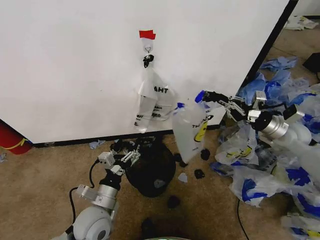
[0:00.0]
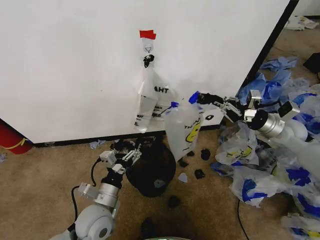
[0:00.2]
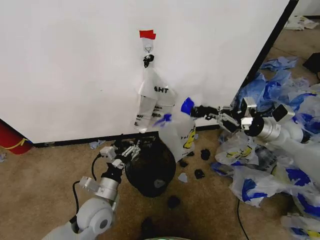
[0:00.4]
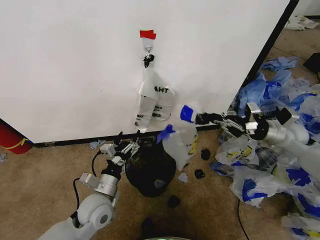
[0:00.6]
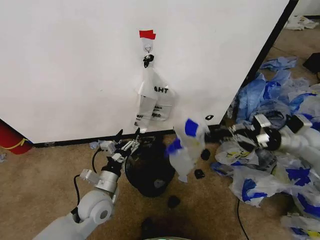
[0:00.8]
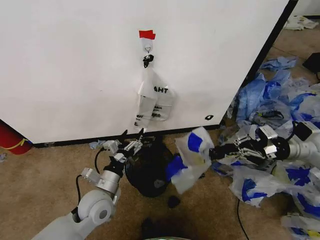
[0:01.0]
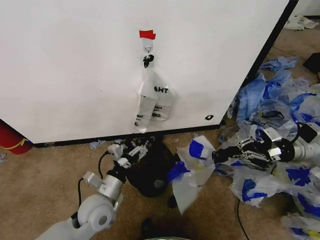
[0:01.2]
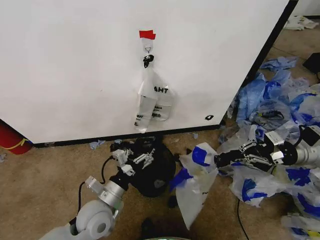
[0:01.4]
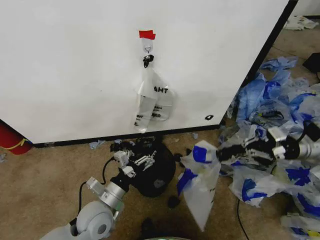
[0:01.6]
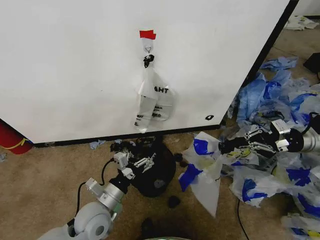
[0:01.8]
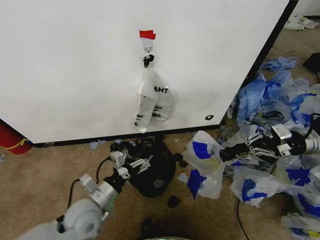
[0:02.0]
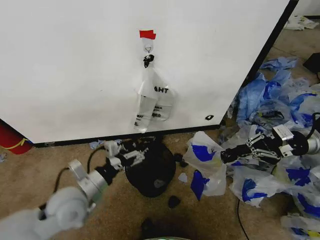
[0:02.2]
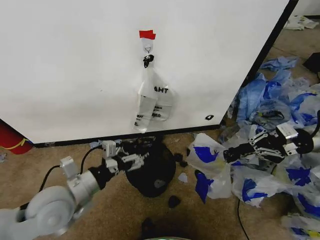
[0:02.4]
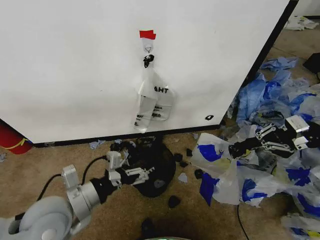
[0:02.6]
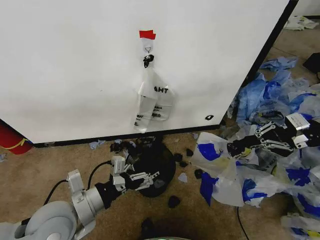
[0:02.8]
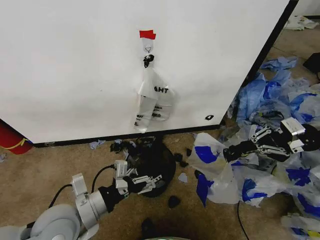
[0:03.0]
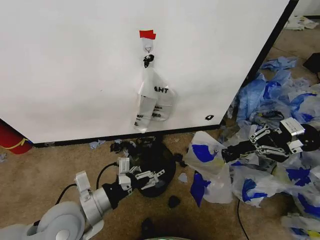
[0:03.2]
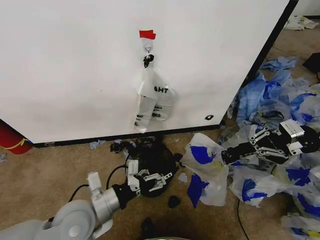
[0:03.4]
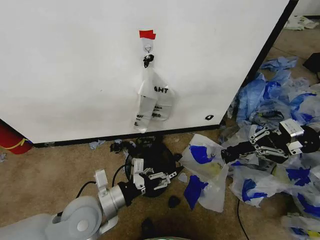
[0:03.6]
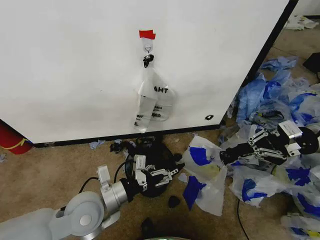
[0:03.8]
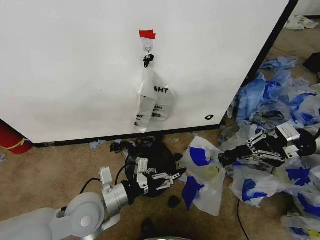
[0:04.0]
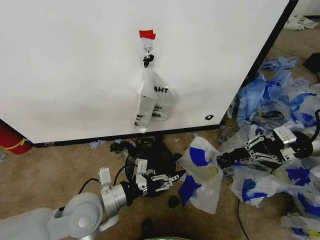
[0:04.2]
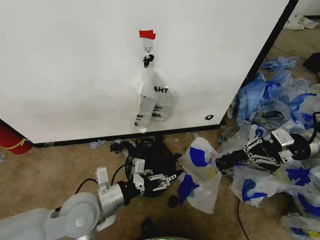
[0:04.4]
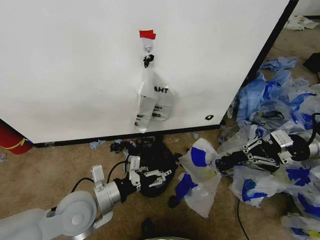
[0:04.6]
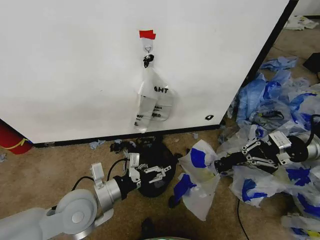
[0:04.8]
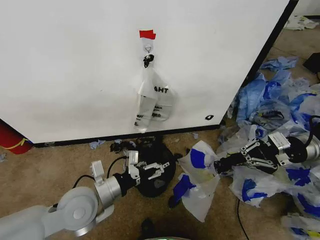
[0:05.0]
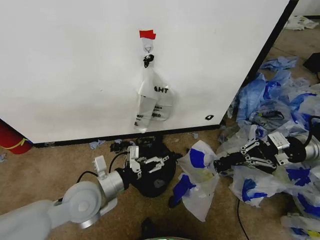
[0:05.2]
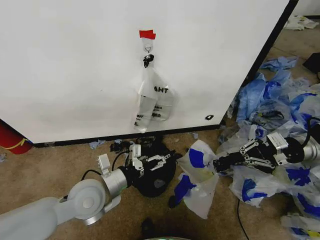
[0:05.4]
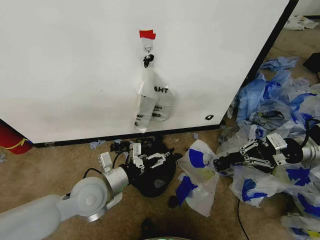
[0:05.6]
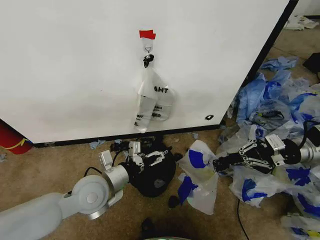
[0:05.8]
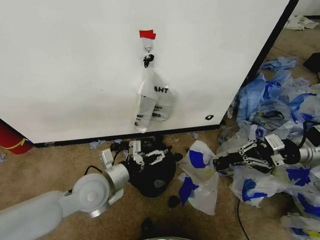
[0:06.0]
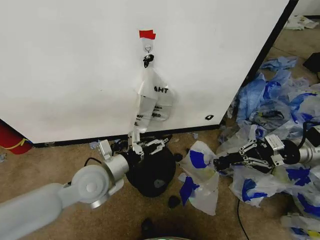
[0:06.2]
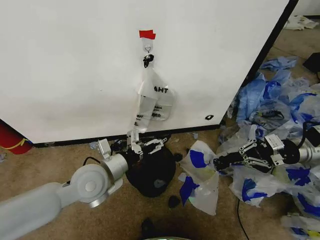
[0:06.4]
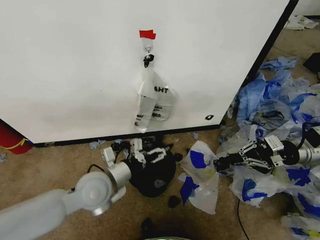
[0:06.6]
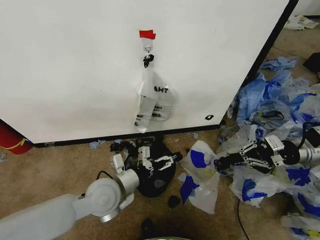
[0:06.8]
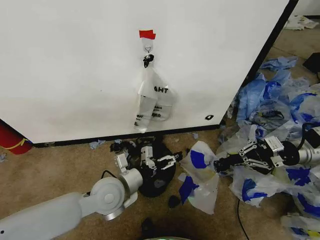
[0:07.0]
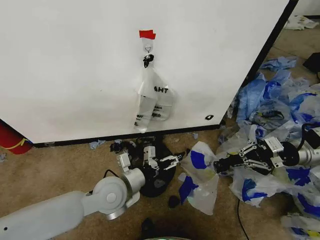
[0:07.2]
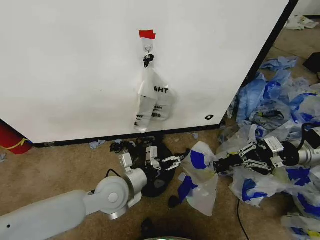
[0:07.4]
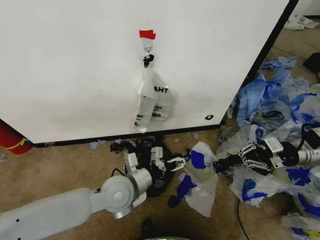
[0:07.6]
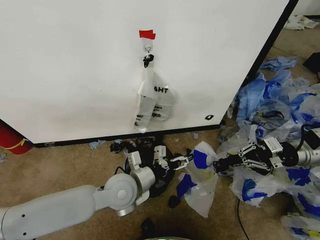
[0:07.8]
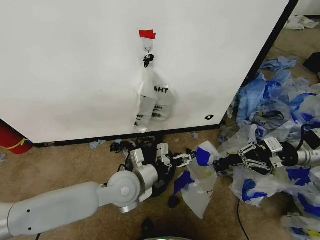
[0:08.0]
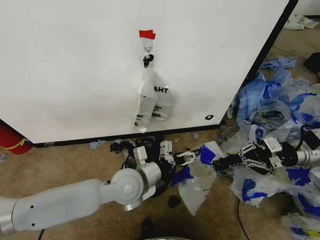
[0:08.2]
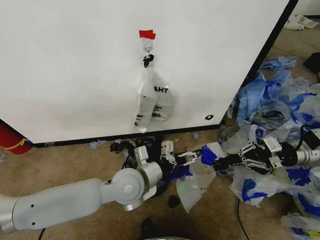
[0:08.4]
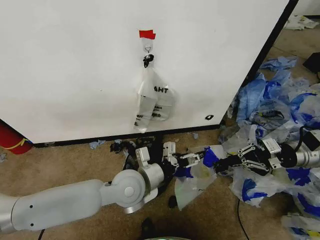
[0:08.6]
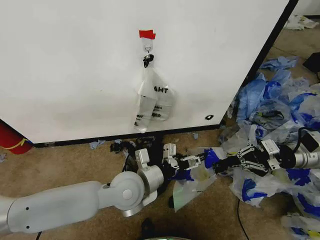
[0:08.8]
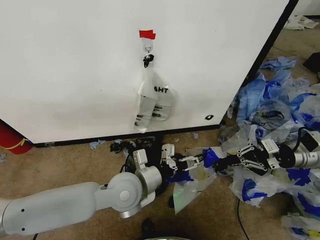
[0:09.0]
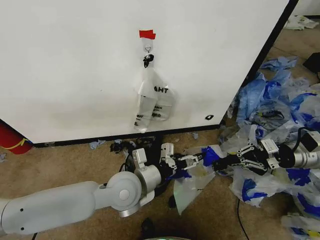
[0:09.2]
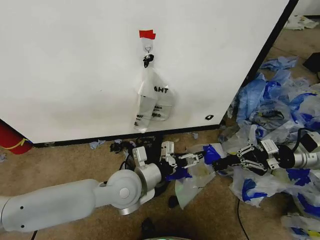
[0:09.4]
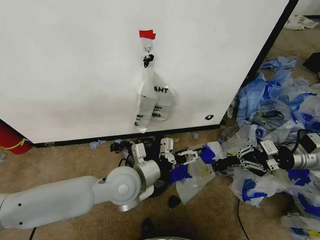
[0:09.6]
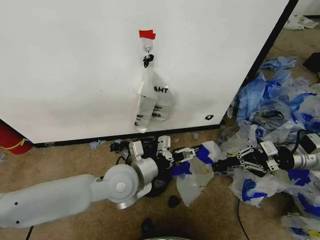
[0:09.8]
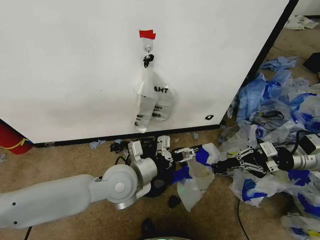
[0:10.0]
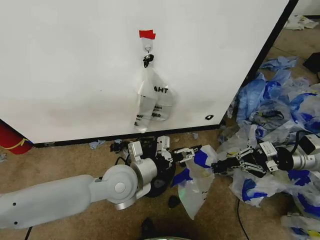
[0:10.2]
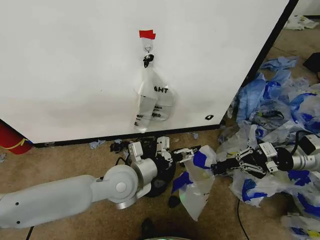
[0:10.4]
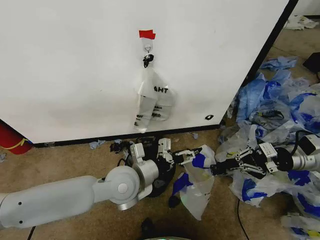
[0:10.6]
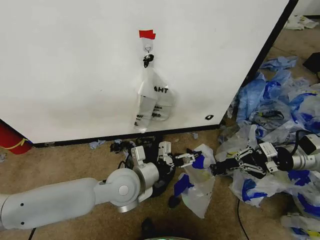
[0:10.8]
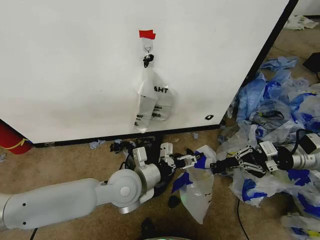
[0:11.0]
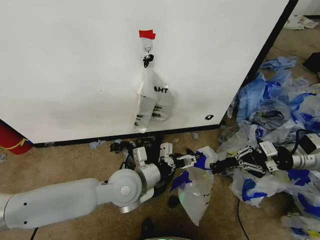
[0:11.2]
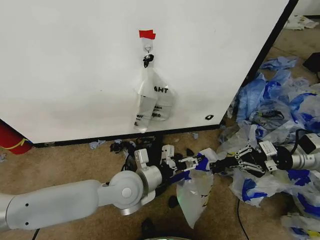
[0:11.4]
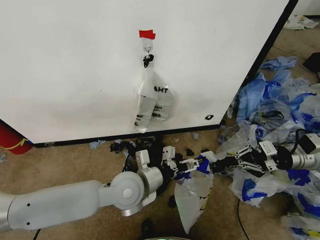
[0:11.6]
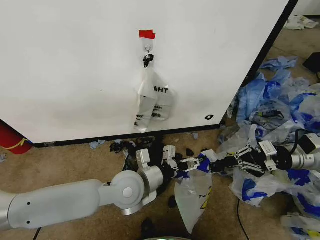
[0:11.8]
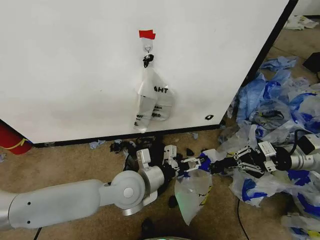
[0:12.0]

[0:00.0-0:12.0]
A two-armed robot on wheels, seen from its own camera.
Task of the whole recording: Pick up the garbage bag from the wall and place it over the trash bin.
0:00.0 to 0:01.6: The right gripper is displaced to the right and backward by about 5 cm.
0:01.6 to 0:03.0: The grippers both shift upward by roughly 10 cm.
0:03.0 to 0:04.4: The left gripper shifts by some 5 cm.
0:04.4 to 0:06.0: The left gripper shifts by about 5 cm.
0:06.0 to 0:07.6: The left gripper moves to the right, about 5 cm.
0:07.6 to 0:12.0: There are only small adjustments of the grippers.

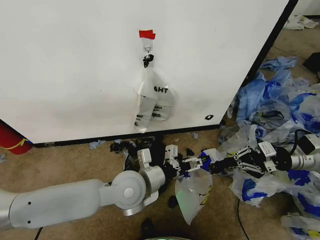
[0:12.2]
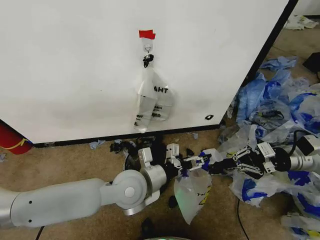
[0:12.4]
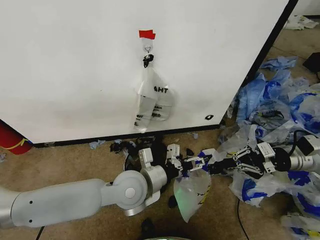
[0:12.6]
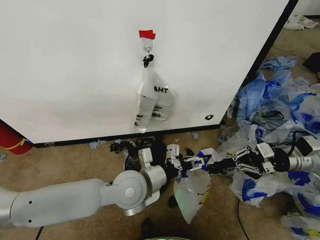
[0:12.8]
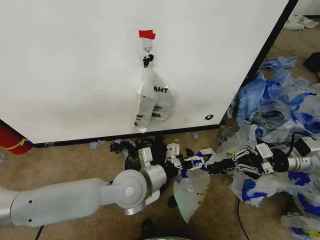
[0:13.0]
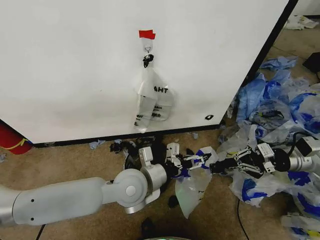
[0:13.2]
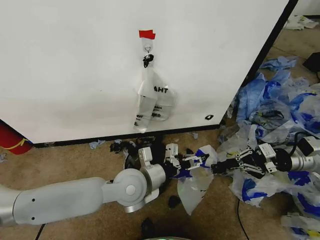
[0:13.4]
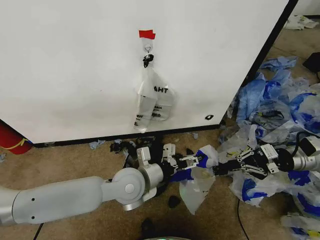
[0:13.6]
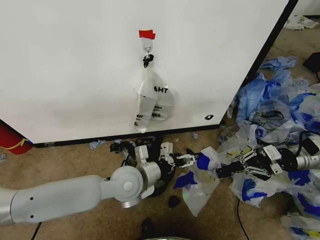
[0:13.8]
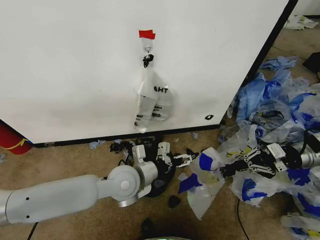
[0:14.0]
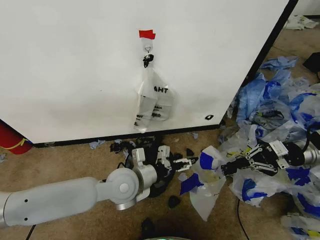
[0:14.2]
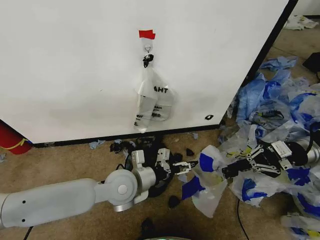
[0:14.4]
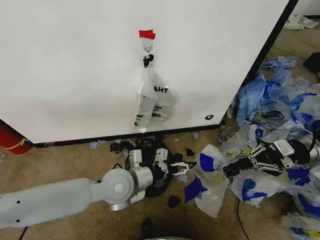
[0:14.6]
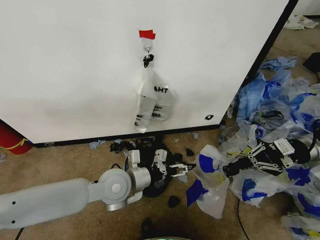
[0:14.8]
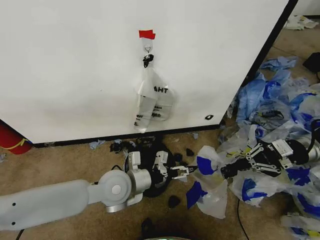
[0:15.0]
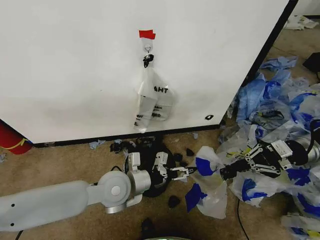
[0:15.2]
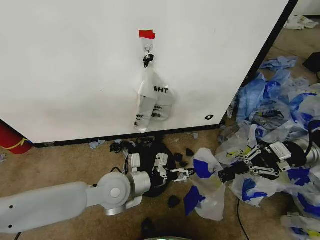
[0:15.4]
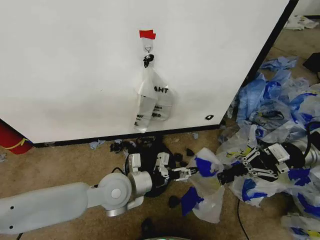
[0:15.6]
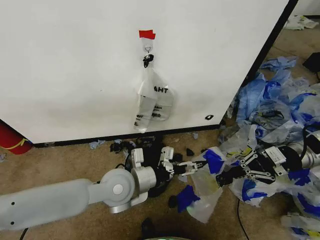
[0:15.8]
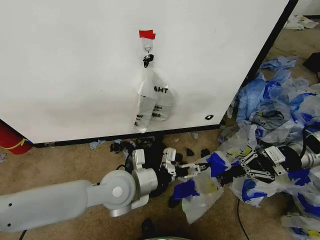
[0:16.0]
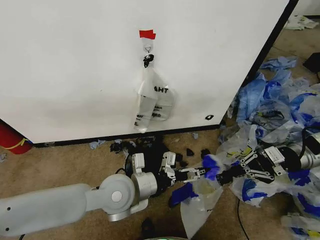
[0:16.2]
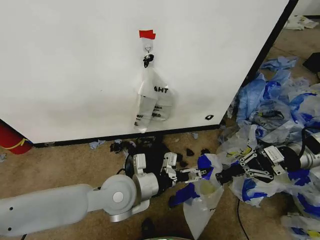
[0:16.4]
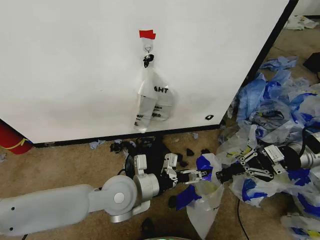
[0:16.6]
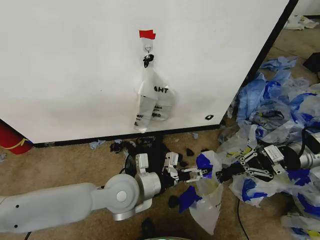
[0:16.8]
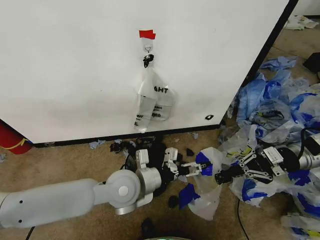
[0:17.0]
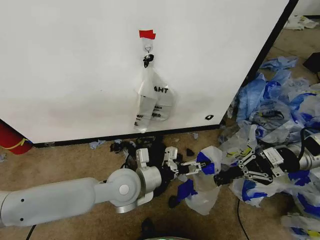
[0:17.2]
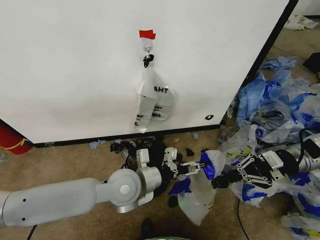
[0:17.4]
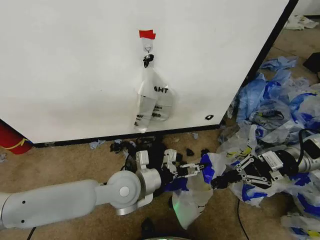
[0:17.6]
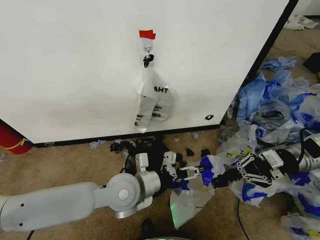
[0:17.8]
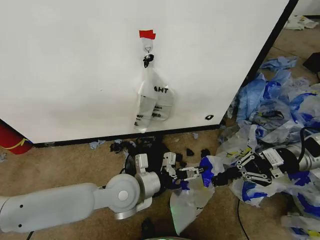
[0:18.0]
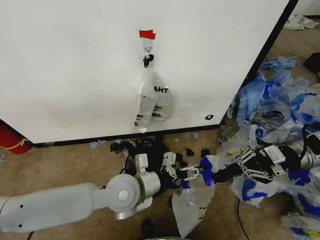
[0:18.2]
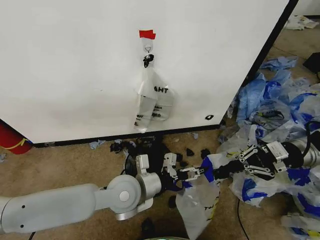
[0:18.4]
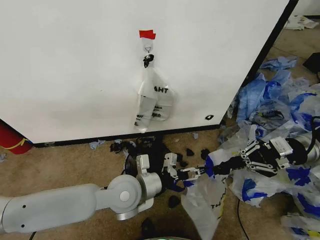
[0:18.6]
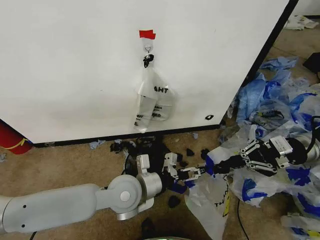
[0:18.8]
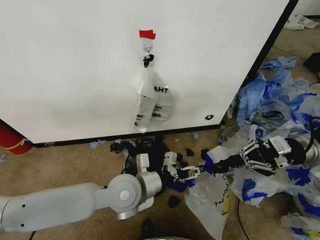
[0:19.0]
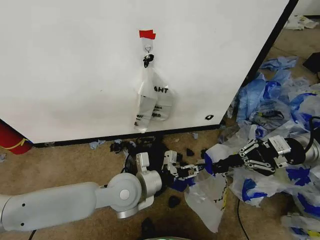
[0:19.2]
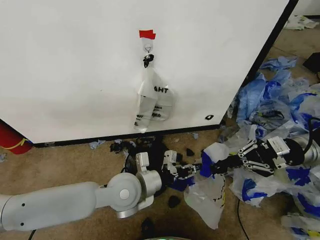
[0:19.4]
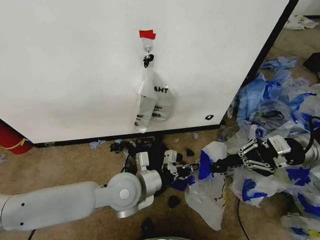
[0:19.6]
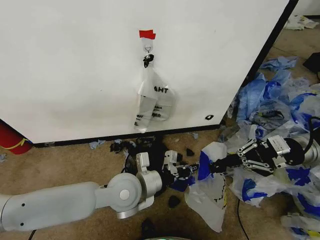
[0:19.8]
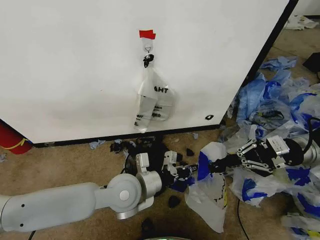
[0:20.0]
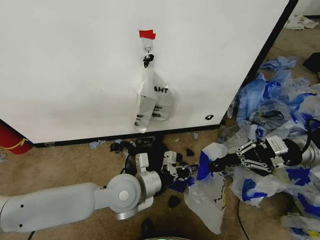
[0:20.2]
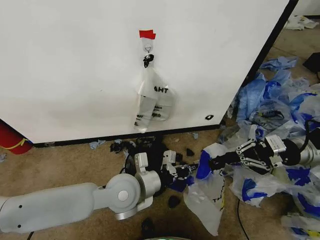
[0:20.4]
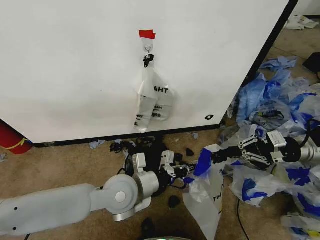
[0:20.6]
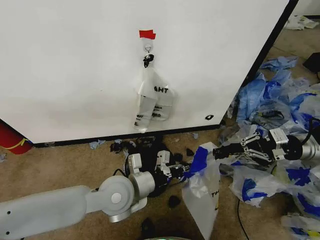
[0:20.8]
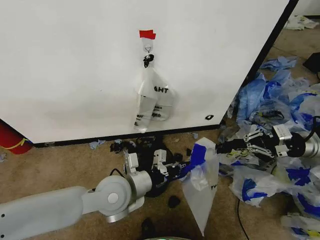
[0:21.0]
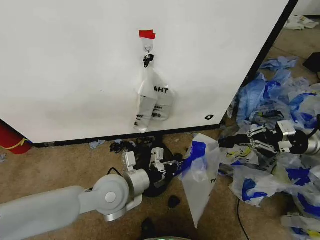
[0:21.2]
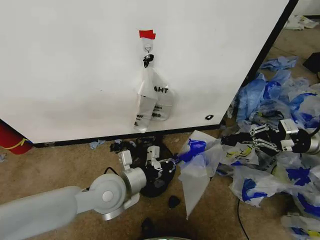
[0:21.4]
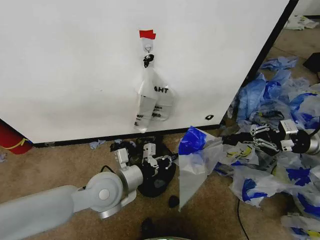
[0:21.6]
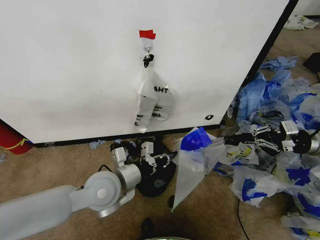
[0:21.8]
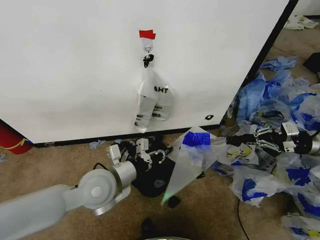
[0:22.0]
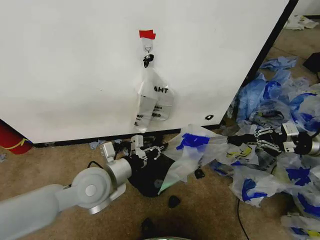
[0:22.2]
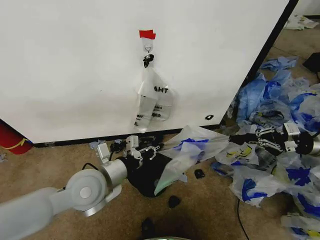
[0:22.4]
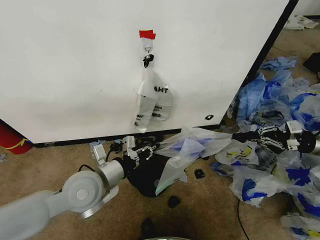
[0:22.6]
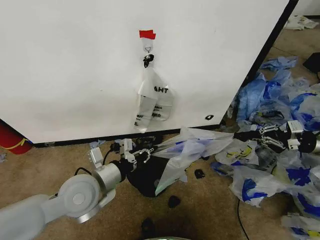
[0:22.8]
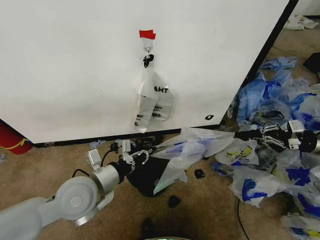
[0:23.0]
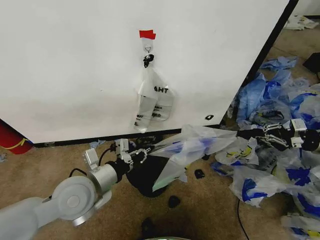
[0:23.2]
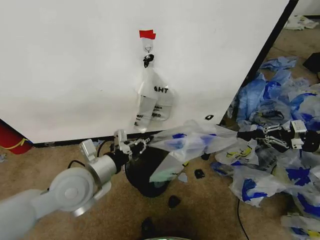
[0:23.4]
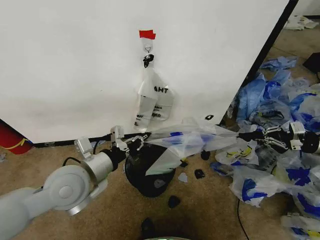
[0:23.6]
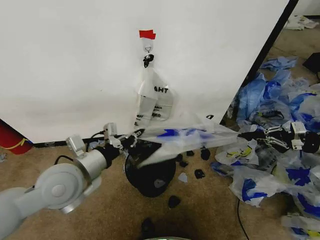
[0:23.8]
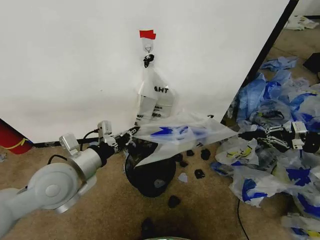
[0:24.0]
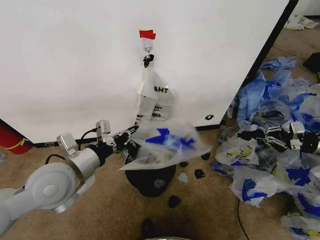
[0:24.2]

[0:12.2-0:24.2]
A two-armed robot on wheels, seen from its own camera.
Task of the whole recording: Pick up the garbage bag from the wall and place it over the trash bin.
0:12.2 to 0:13.8: There are only small adjustments of the grippers.
0:13.8 to 0:15.2: The right gripper changes place by approximately 5 cm.
0:15.2 to 0:18.2: The grippers make only small movements.
0:18.2 to 0:19.8: The left gripper closes its fingers.
0:19.8 to 0:21.2: The right gripper shifts by approximately 5 cm.
0:21.2 to 0:22.6: The left gripper shifts roughly 5 cm to the left; the right gripper shifts roughly 5 cm to the right.
0:22.6 to 0:24.2: The left gripper travels upward by approximately 5 cm.
